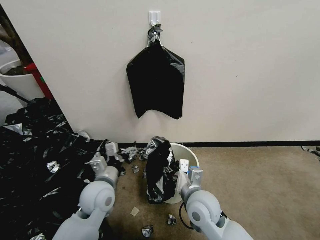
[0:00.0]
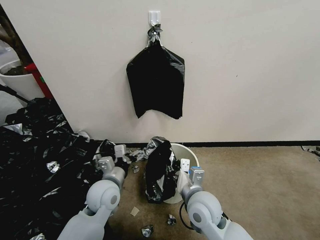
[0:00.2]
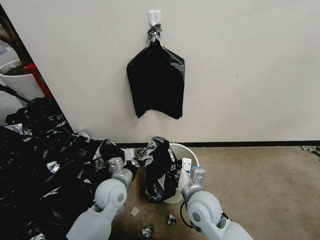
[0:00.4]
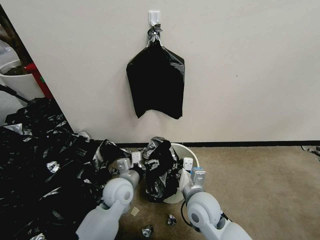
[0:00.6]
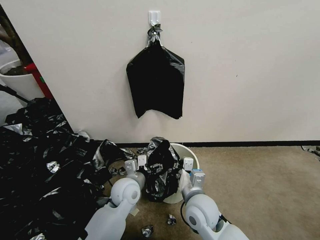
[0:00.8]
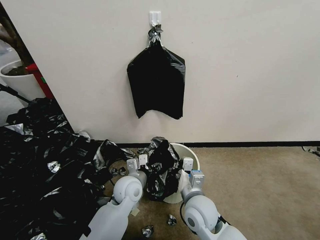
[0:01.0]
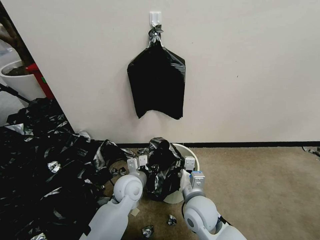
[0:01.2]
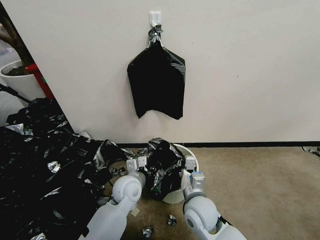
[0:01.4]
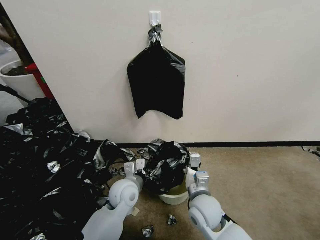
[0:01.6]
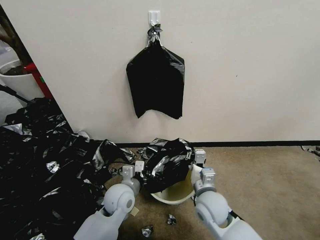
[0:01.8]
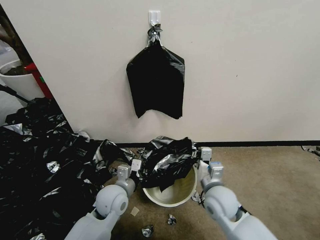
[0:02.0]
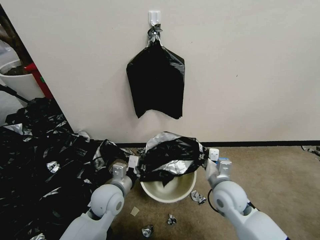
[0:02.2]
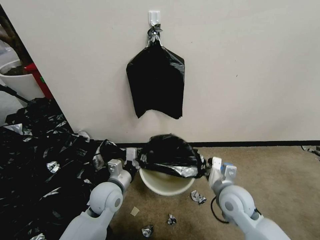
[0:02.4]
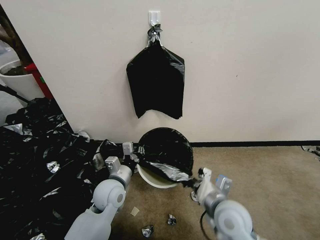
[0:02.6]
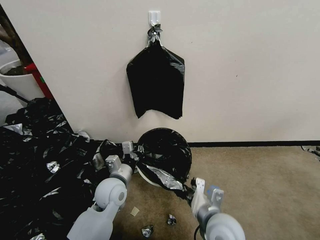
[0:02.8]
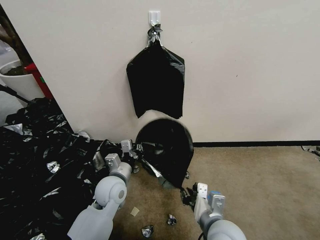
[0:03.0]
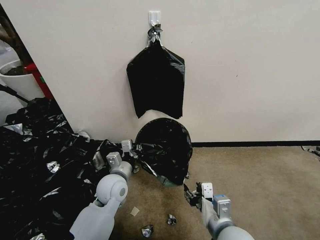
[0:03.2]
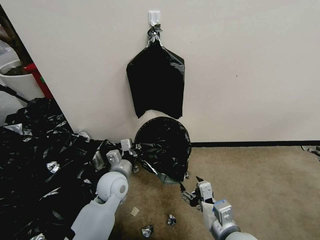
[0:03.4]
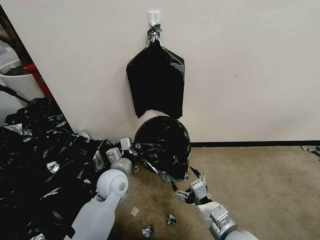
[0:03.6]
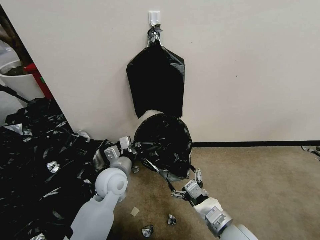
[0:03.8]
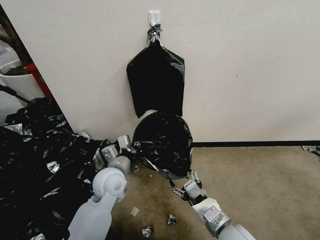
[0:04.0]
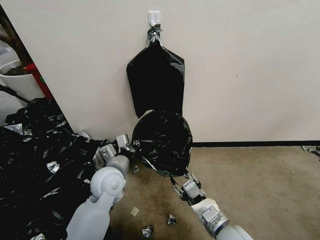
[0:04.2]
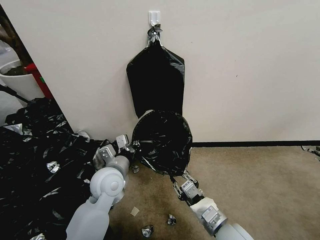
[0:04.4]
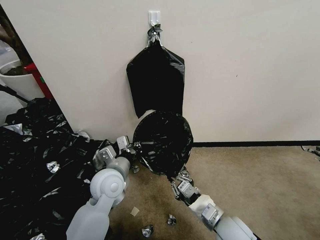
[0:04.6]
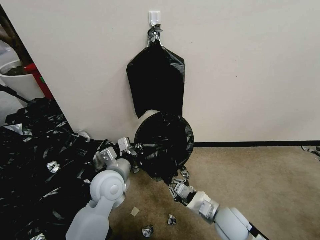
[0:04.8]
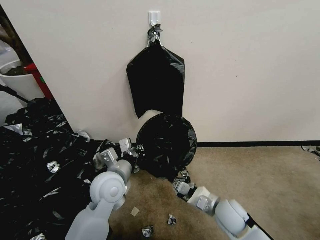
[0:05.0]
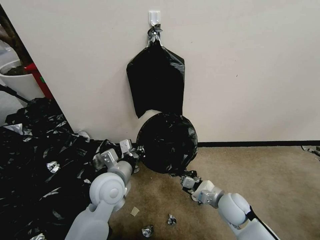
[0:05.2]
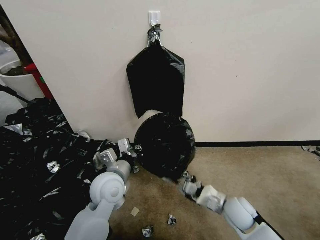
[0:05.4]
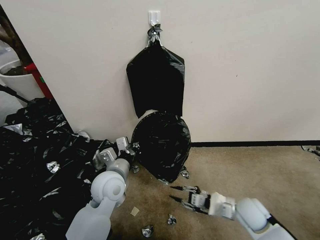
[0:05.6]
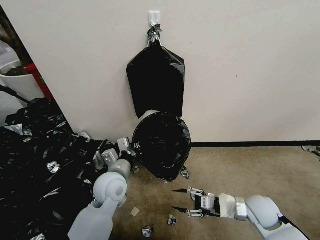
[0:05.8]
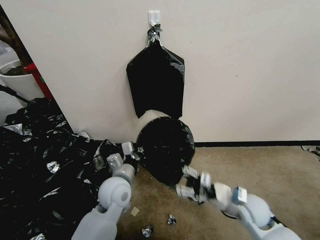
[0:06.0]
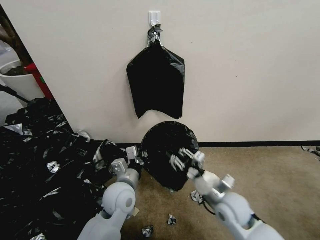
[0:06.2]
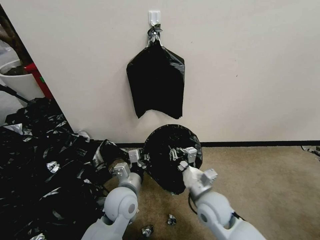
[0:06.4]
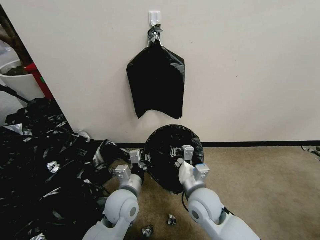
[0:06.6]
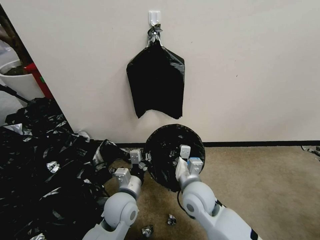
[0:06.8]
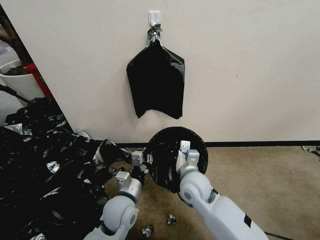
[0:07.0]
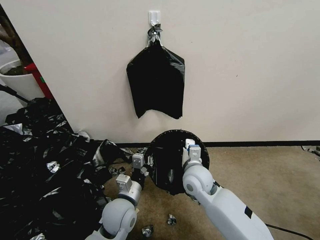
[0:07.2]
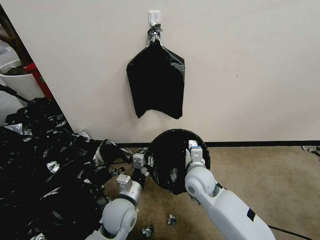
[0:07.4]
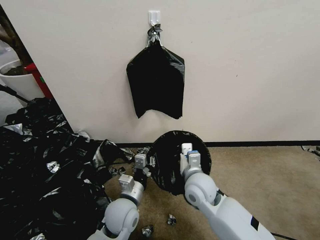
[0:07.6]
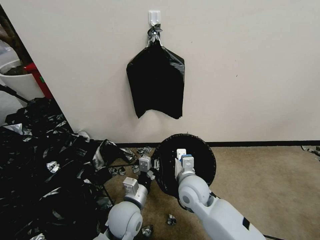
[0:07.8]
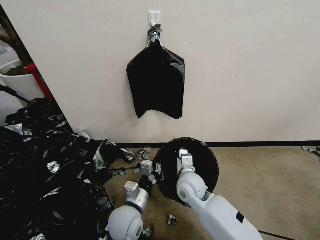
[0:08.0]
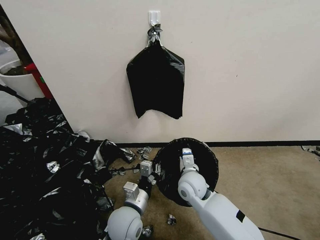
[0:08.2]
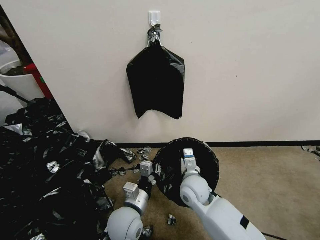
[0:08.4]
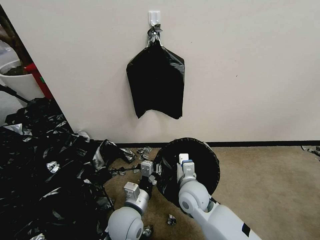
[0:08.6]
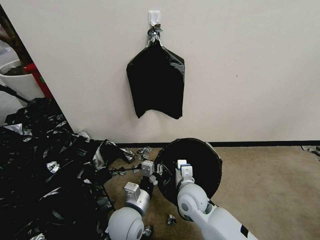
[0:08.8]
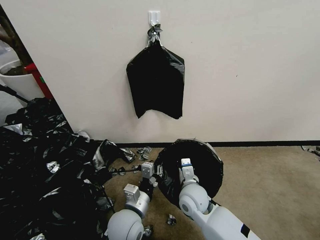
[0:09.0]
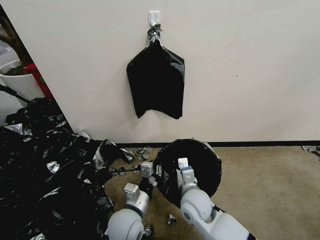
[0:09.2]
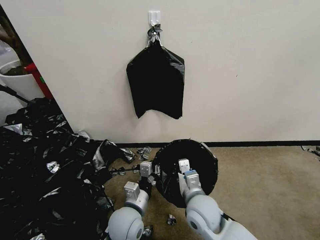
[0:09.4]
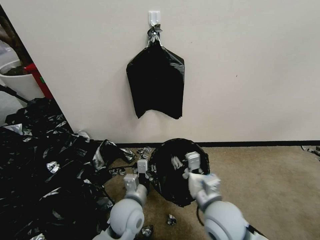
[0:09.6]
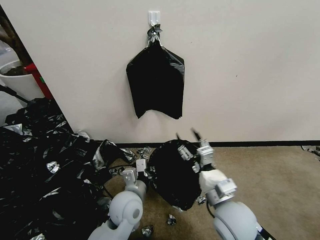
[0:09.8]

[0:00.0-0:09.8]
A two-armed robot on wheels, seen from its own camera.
Task of the whole recording: Place a trash bag onto the trash bin.
0:00.0 to 0:01.4: The right gripper closes its fingers; the left gripper goes about 5 cm to the right, and closes.
0:01.4 to 0:02.8: The left gripper shifts by some 5 cm. Meanwhile the right gripper heads backward, covering approximately 5 cm.
0:02.8 to 0:04.2: The left gripper travels upward by roughly 5 cm. Meanwhile the right gripper ends up roughly 5 cm from where it was, and opens.
0:04.2 to 0:05.6: The right gripper is displaced to the right, forward and downward by some 15 cm.
0:05.6 to 0:07.0: The left gripper shifts approximately 10 cm downward and backward; the right gripper goes roughly 20 cm to the left and upward.
0:08.4 to 0:09.8: The left gripper changes place by about 5 cm. Meanwhile the right gripper moves backward, upward and to the right, approximately 15 cm, and opens.

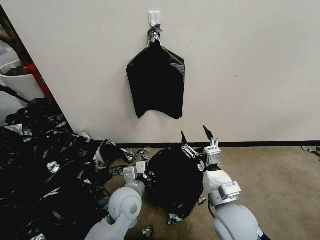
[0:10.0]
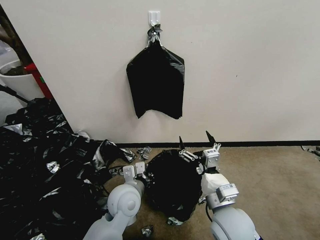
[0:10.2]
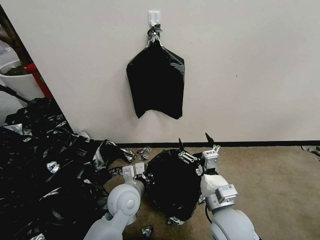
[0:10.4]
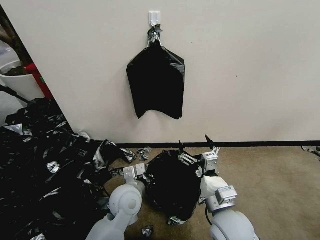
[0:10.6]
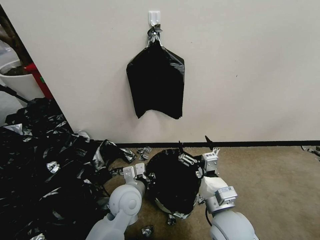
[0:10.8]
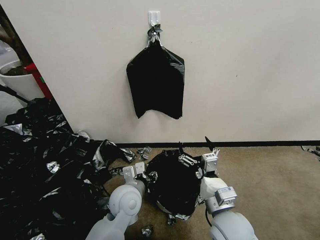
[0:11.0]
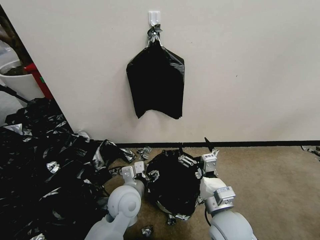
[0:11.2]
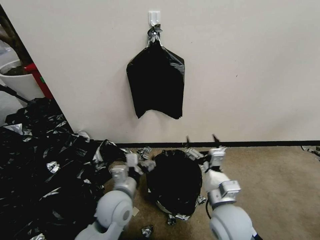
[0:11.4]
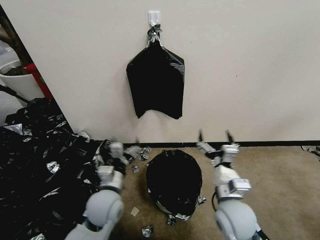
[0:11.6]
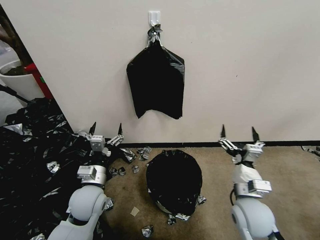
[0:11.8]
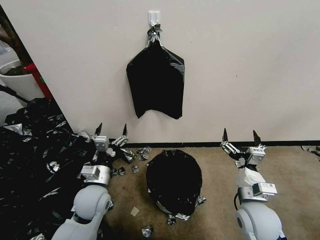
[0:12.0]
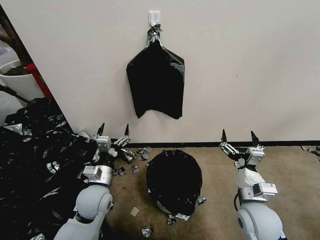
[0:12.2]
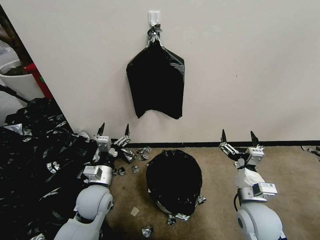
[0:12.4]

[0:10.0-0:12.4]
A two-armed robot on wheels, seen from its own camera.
Task of the whole recording: Place a trash bag onto the trash bin.
0:10.0 to 0:11.2: The left gripper opens up.
0:11.2 to 0:12.4: The left gripper moves to the left, some 10 cm; the right gripper shifts roughly 10 cm to the right.

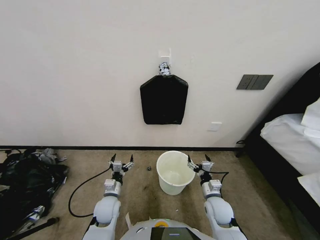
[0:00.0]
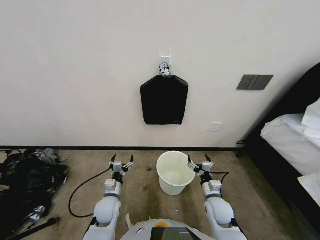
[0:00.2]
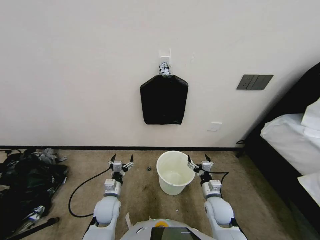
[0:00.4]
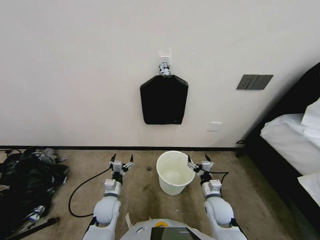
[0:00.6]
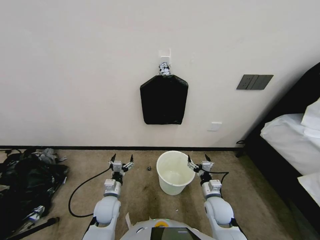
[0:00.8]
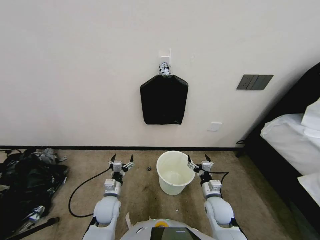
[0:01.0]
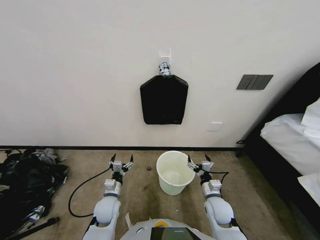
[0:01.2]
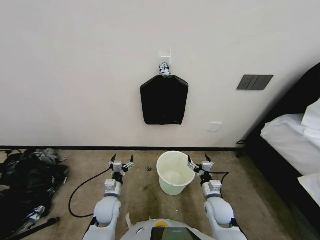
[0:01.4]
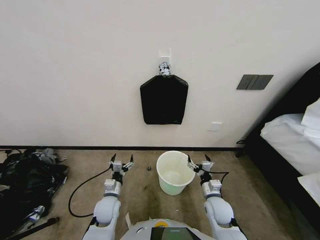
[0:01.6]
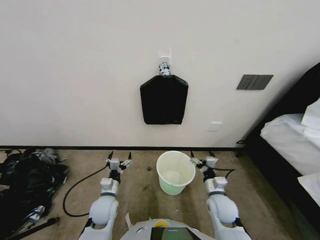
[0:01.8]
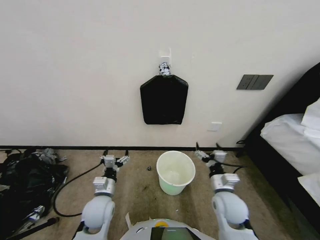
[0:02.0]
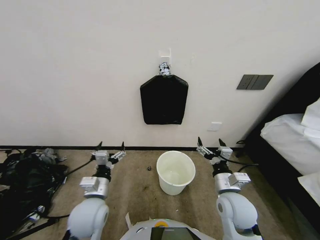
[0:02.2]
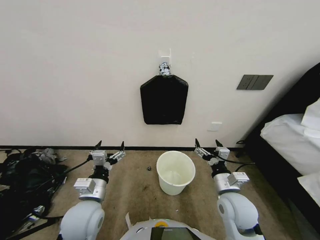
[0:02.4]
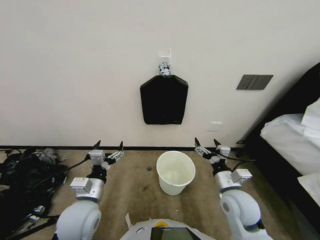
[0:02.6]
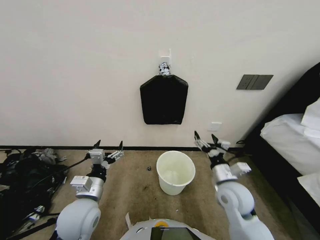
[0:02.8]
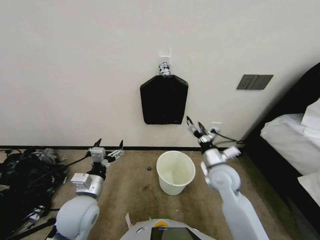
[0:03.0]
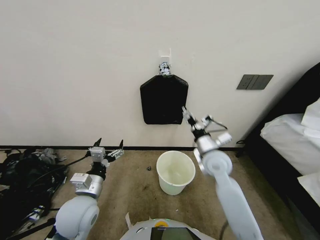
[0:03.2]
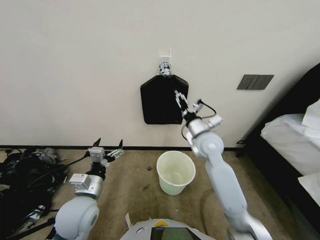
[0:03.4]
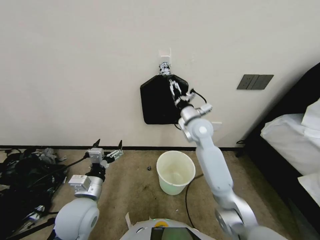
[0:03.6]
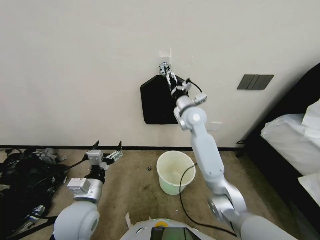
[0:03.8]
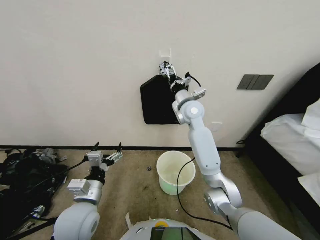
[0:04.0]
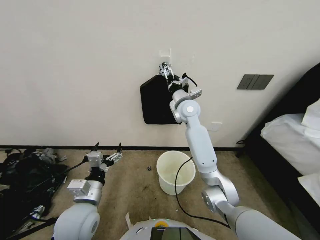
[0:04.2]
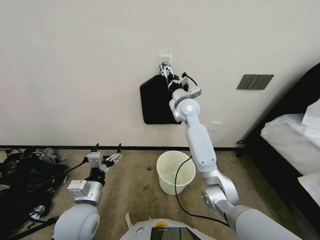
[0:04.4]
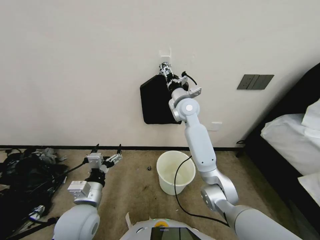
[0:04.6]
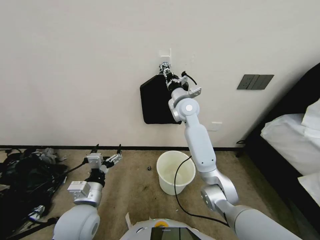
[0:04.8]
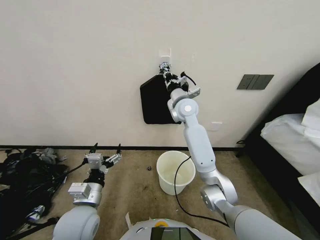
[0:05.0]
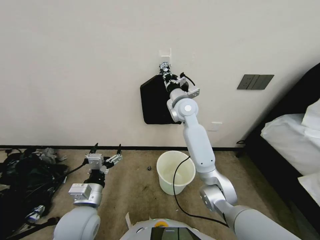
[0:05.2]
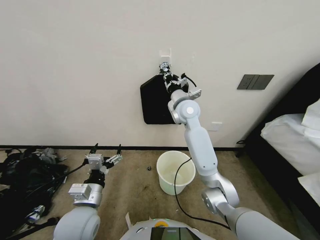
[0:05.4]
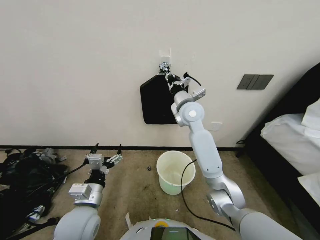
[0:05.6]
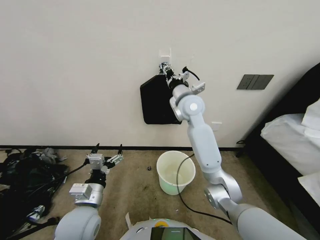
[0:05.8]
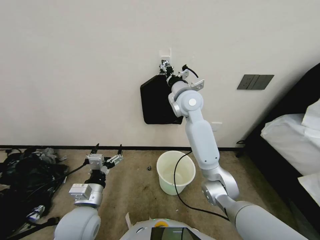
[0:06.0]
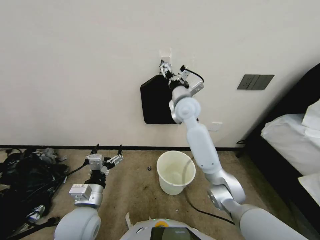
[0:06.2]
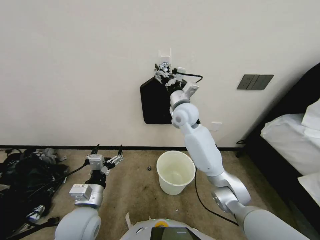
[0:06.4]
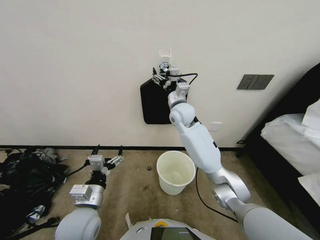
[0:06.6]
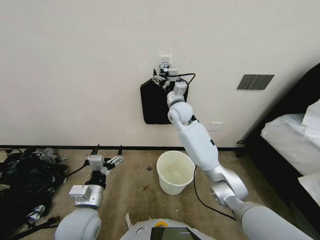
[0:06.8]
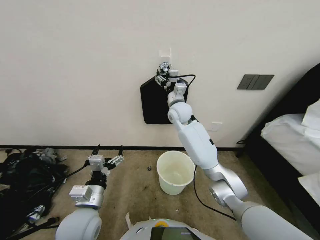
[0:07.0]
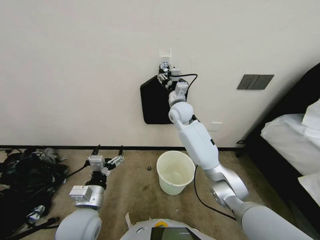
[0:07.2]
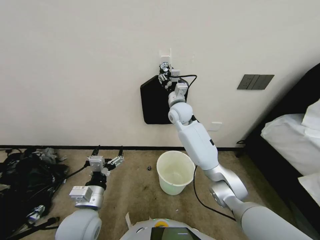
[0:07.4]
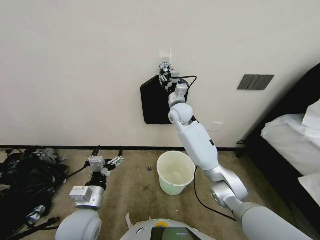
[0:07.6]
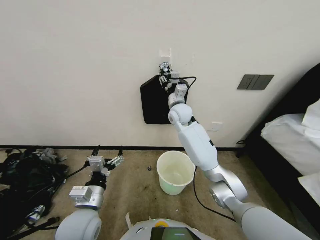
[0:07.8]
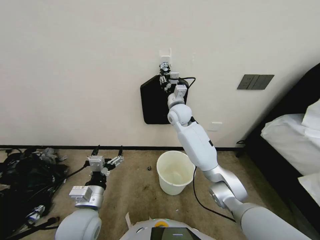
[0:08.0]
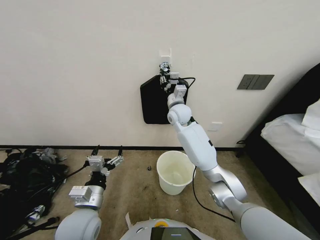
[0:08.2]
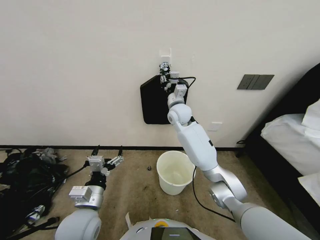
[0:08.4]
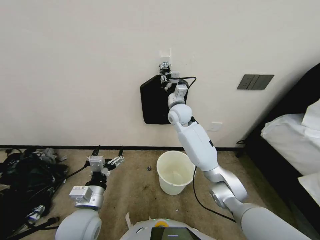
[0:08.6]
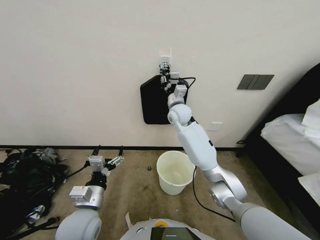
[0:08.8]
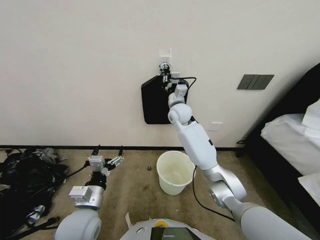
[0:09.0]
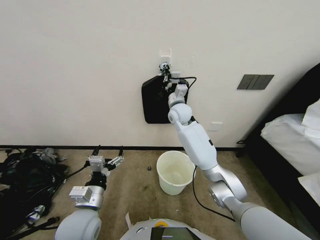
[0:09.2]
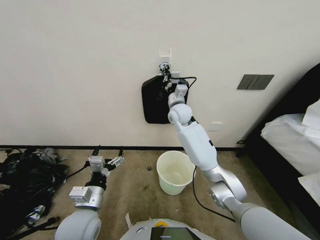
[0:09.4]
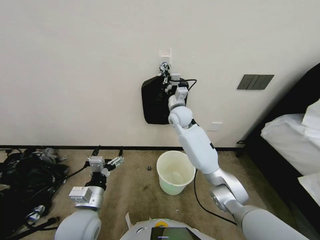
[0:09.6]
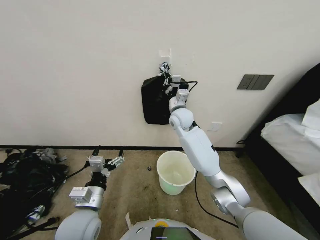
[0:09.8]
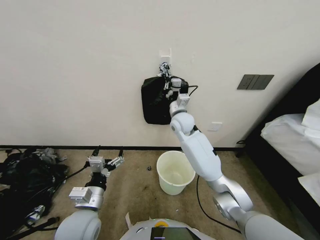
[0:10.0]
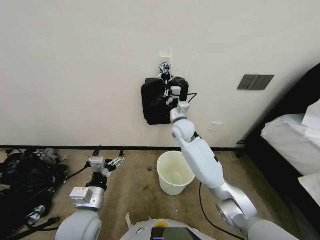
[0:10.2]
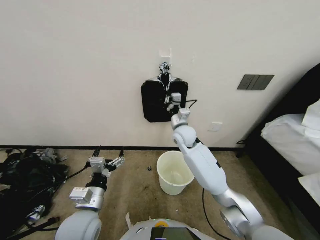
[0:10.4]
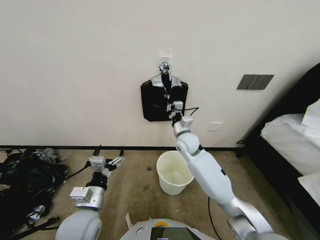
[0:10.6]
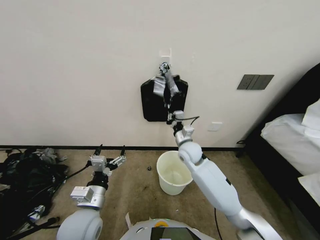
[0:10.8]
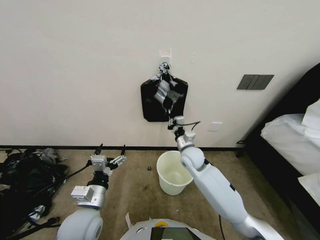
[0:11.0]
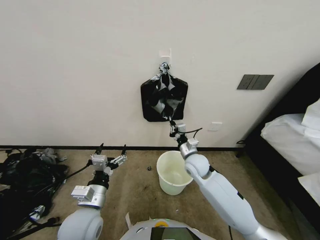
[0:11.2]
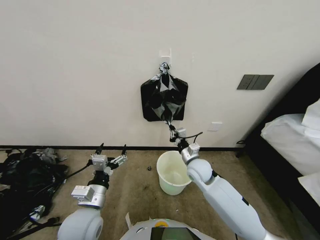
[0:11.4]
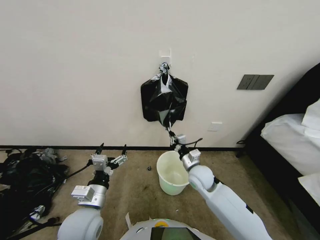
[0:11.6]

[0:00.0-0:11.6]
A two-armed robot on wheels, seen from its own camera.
Task of the whole recording: Place a trash bag onto the trash bin.
0:01.4 to 0:02.8: The two grippers go approximately 15 cm upward.
0:02.8 to 0:04.4: The right gripper heads forward, upward and to the left, covering about 35 cm.
0:04.4 to 0:05.8: The right gripper closes.
0:05.8 to 0:07.2: The right gripper ends up approximately 5 cm from where it was, and opens its fingers.
0:07.2 to 0:08.8: The right gripper closes up.
0:08.8 to 0:10.2: The right gripper shifts by approximately 5 cm.
0:10.2 to 0:11.6: The right gripper shifts some 20 cm backward, downward and to the right.
